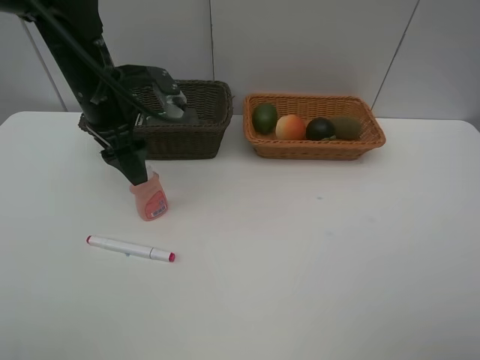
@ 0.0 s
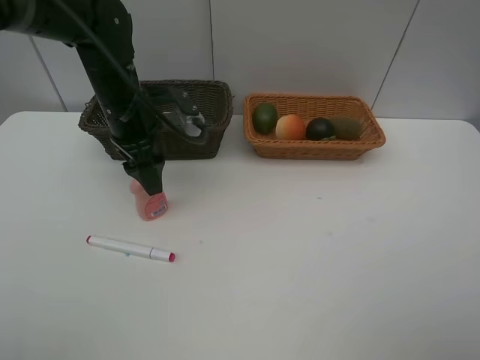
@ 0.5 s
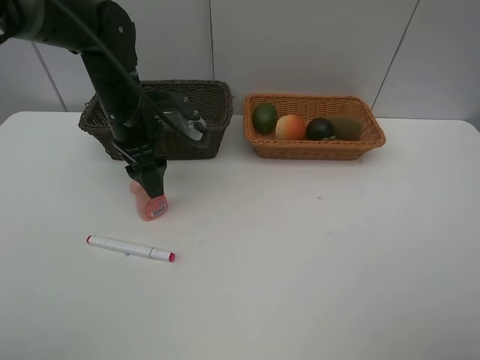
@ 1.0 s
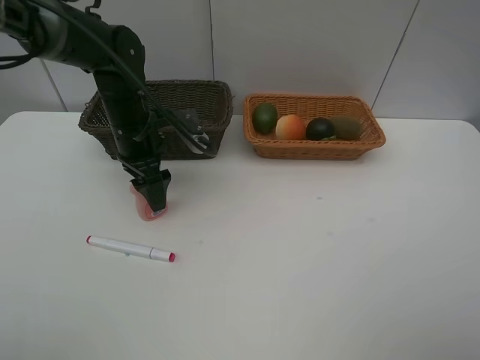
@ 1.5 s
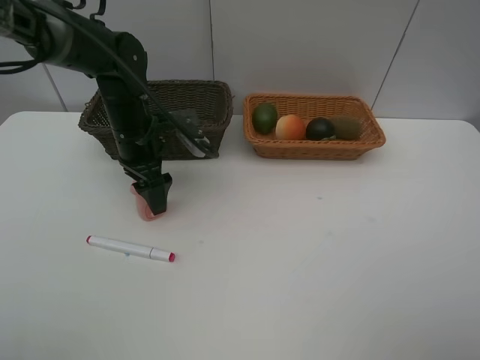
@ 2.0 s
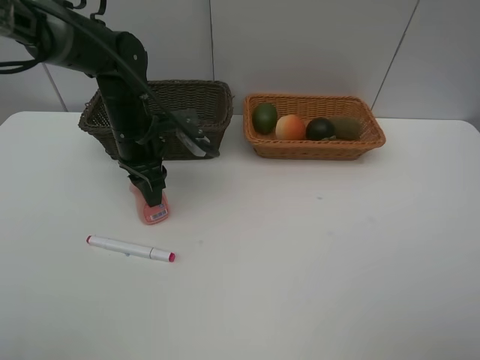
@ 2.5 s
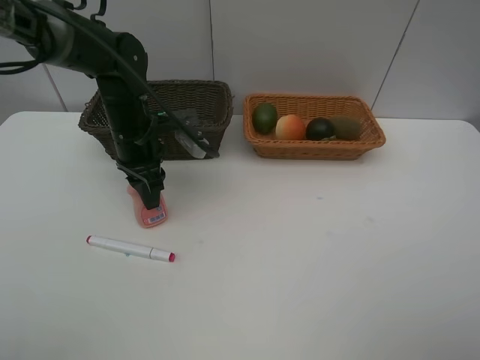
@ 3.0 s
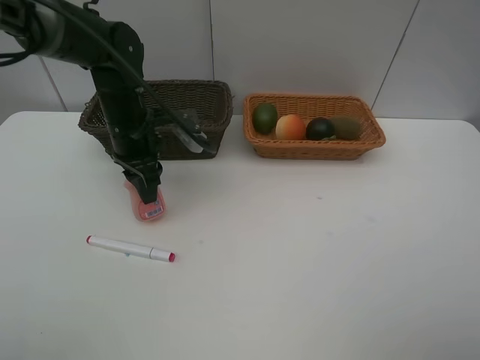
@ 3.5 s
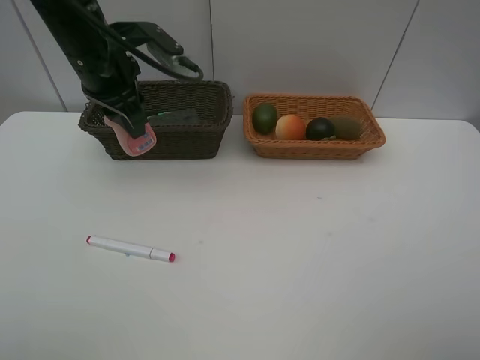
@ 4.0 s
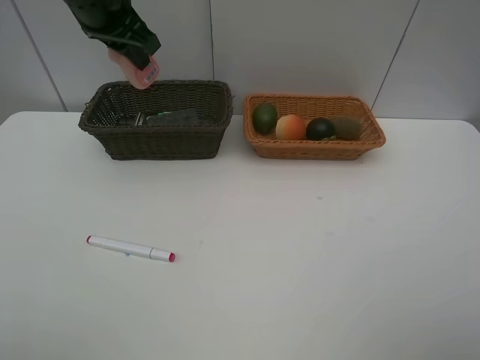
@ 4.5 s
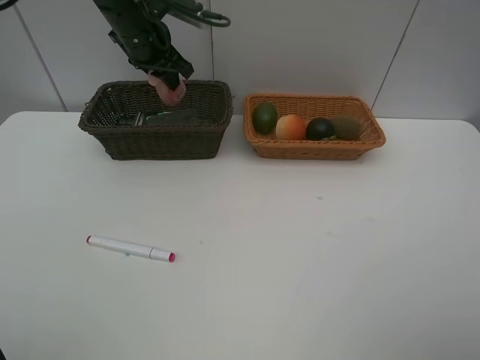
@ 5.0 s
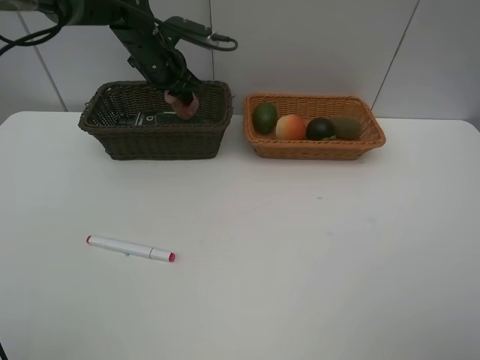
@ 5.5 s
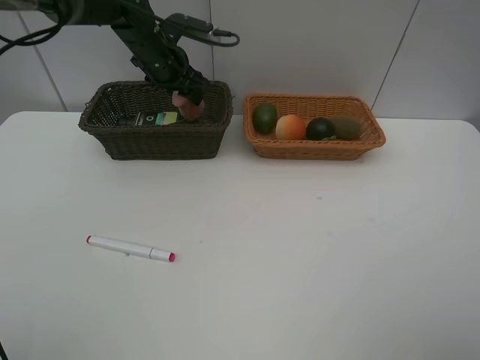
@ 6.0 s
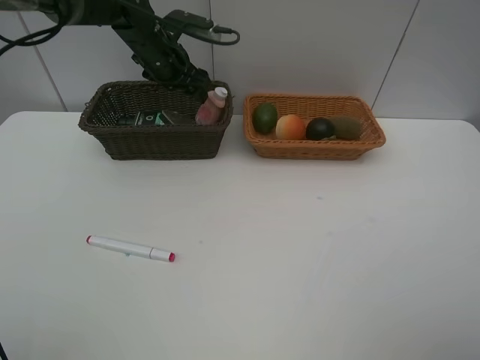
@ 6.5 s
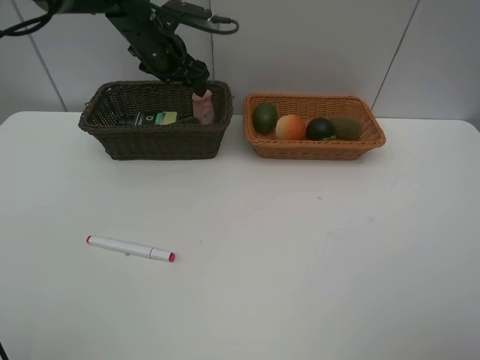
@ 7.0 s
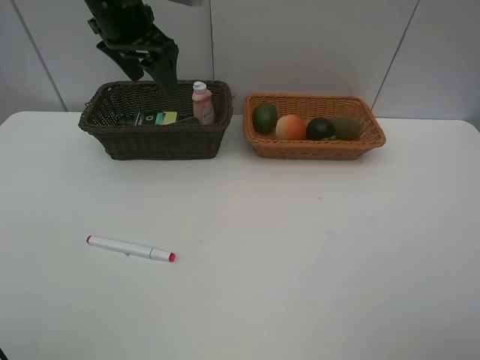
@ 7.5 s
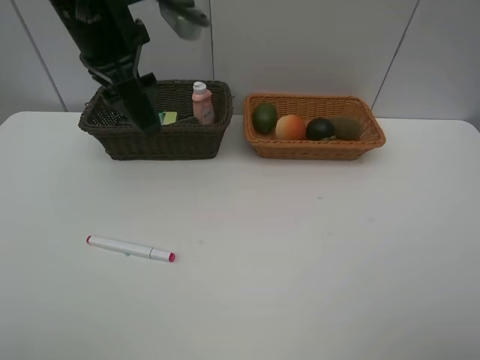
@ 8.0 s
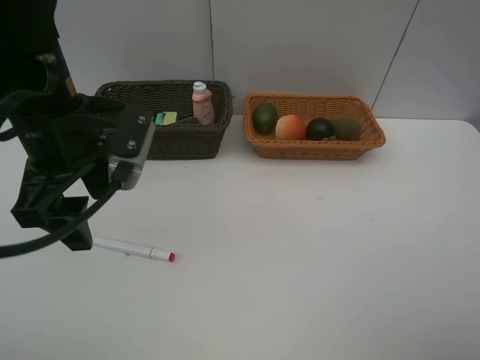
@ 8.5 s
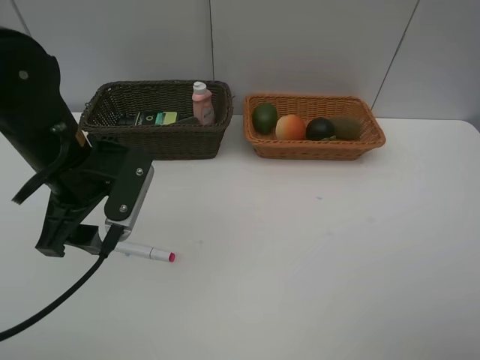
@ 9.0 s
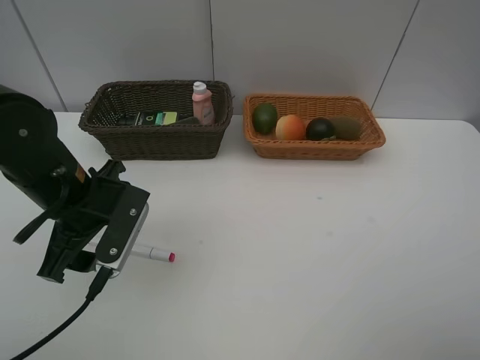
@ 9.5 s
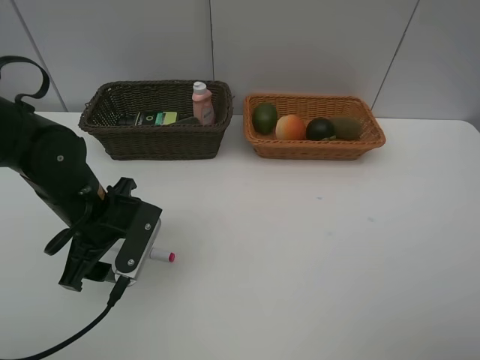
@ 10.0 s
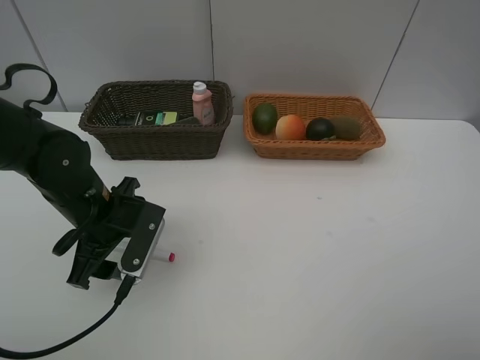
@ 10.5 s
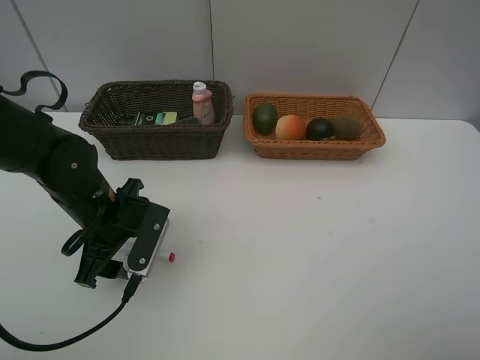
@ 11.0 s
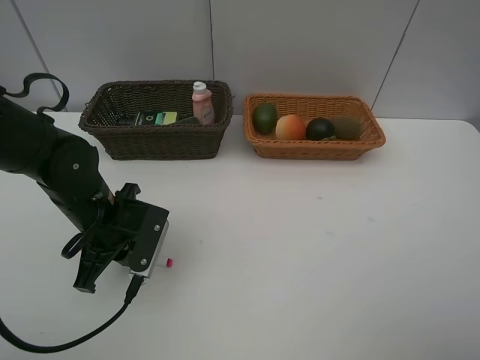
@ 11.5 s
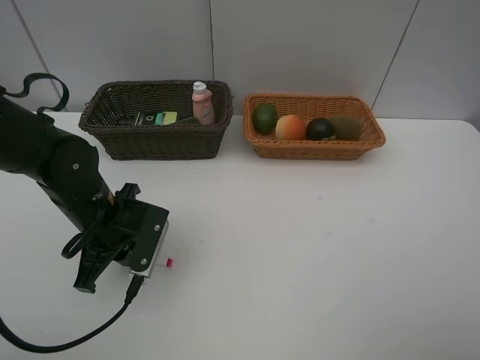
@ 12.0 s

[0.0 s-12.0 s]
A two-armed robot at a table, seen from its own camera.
Task of the whole recording: Place multiple objects separately in different baskets.
Step, 0.0 to 3.5 s: Pick up the laundry detergent with left gripper.
Step, 4.0 to 6.5 s: Place the laundry detergent in the dark basket with left gripper.
0.0 to 2.0 s: The left gripper goes about 10 cm downward.
2.0 to 4.0 s: The left gripper is displaced upward by roughly 15 cm, and closes up.
4.0 to 6.0 s: The left gripper shifts some 15 cm forward and downward, and opens its fingers.
6.0 to 8.0 s: The left gripper shifts some 20 cm backward and upward.
8.0 to 10.0 s: The left gripper heads downward and backward, covering some 20 cm.
10.0 to 12.0 s: The left gripper closes its fingers.

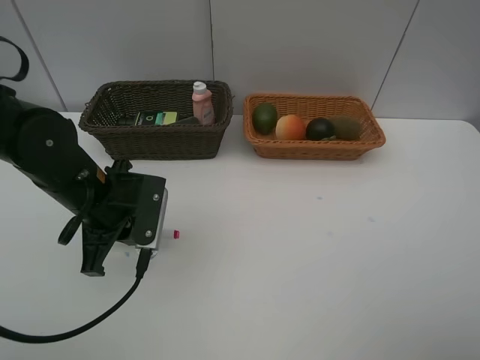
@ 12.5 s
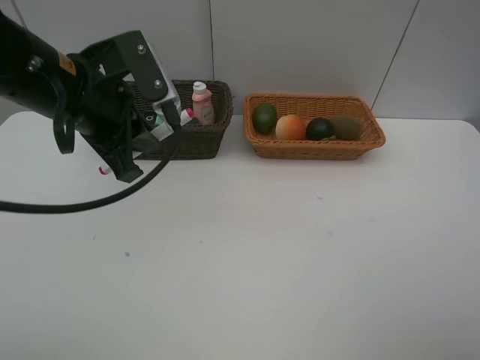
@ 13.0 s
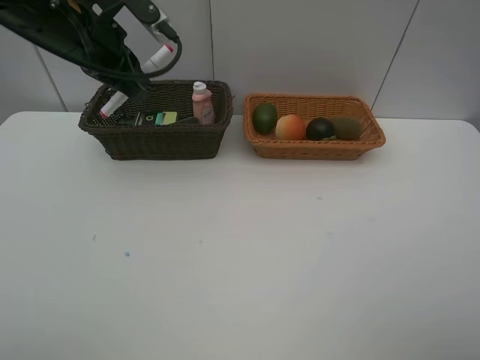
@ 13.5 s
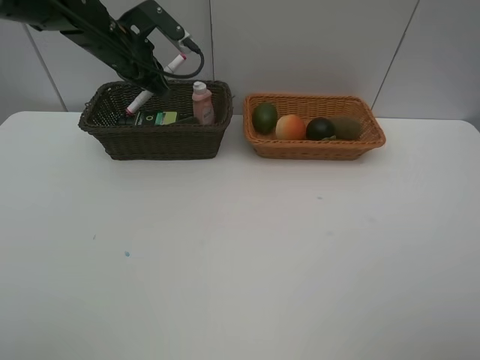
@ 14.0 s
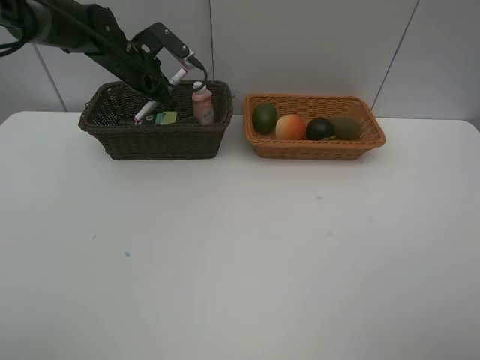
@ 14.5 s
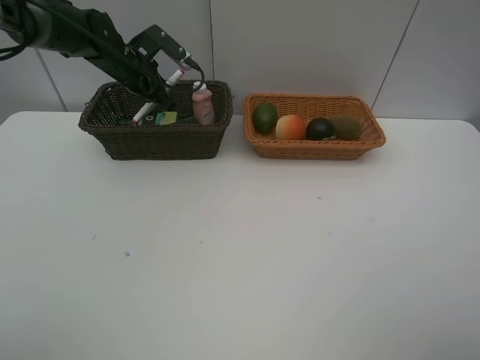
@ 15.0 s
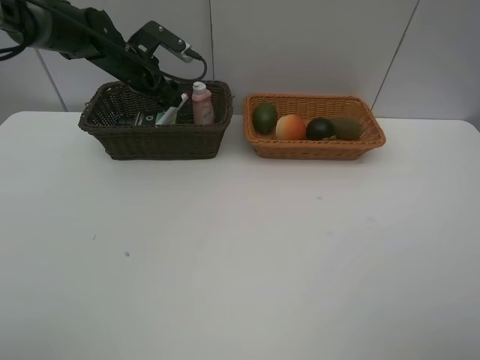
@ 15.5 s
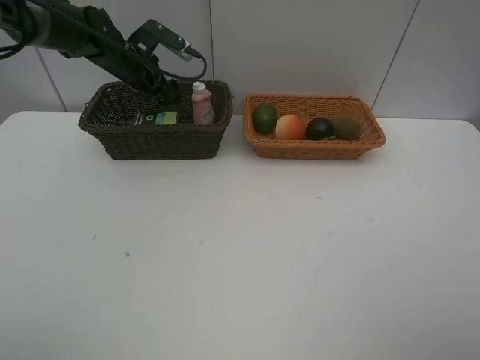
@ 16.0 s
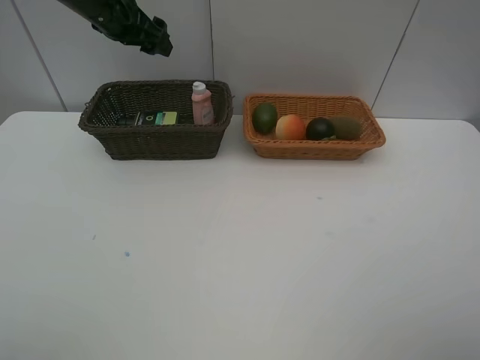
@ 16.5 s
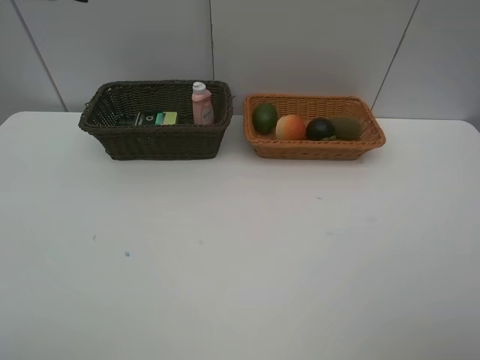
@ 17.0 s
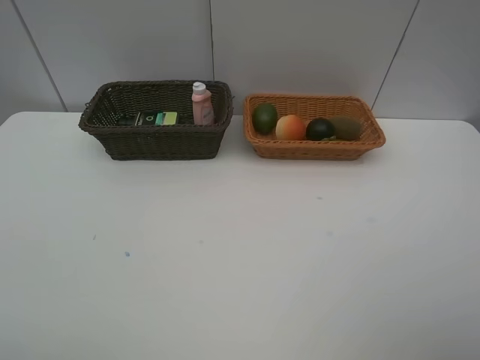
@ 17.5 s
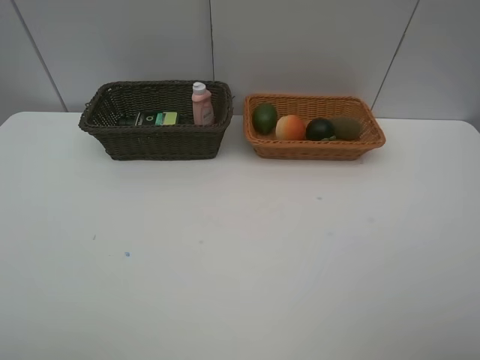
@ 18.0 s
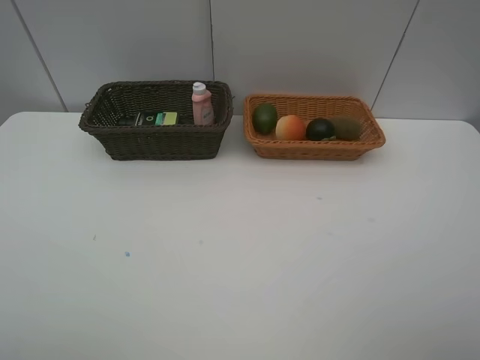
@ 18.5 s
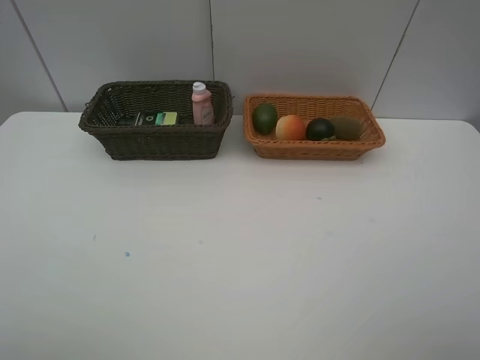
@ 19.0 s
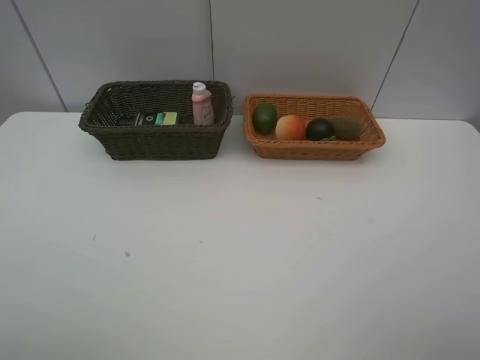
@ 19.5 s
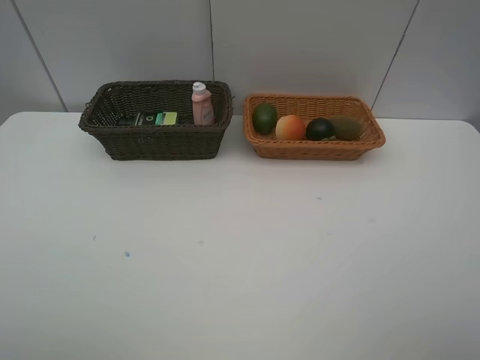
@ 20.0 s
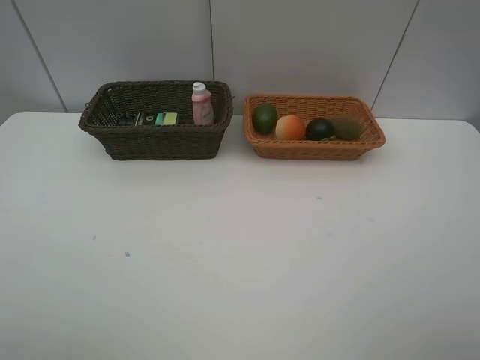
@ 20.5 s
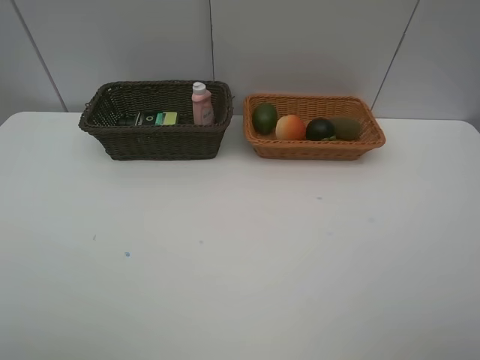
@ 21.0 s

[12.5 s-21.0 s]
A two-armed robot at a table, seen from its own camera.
Task of the whole recording: Place multiple objects separately in different baskets.
Step, 13.0 to 15.0 s: Place the red marker in the dark basket with left gripper.
12.5 to 14.5 s: The left gripper goes about 25 cm forward.
14.5 to 16.5 s: The left gripper heads upward, covering roughly 10 cm, and opens.
16.5 to 19.0 s: The left gripper moves backward, about 50 cm.
19.0 to 21.0 s: The two grippers keep their place.
